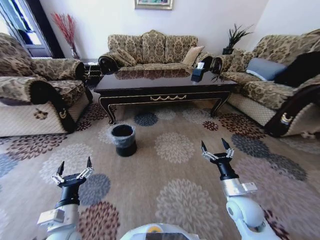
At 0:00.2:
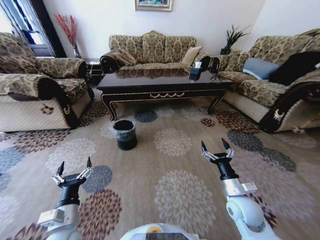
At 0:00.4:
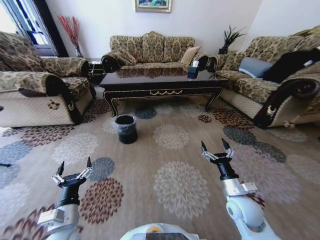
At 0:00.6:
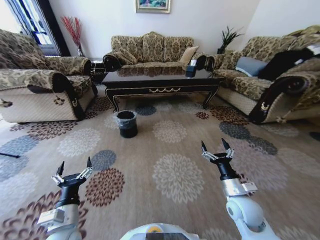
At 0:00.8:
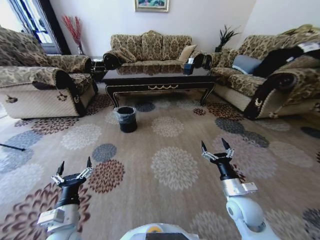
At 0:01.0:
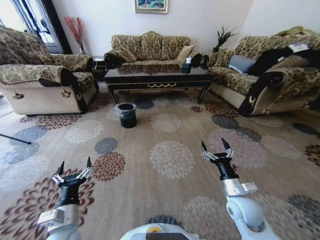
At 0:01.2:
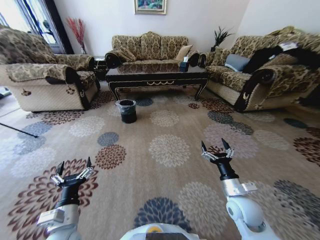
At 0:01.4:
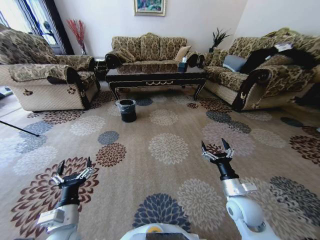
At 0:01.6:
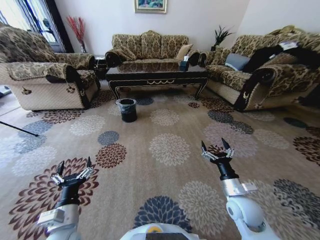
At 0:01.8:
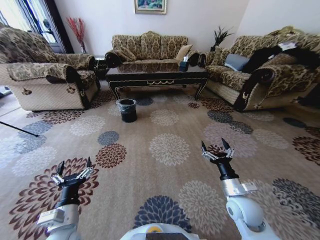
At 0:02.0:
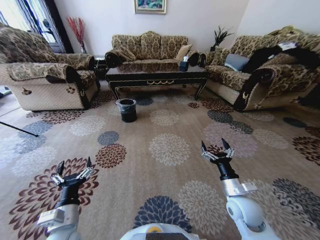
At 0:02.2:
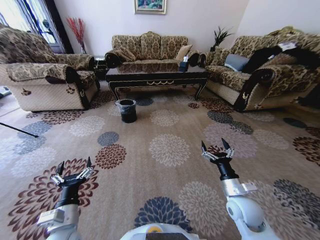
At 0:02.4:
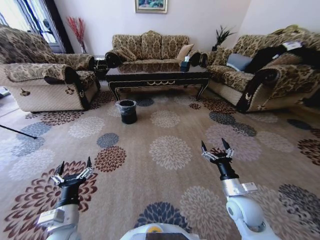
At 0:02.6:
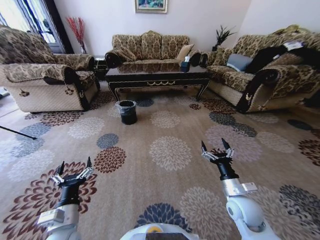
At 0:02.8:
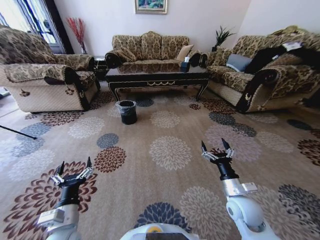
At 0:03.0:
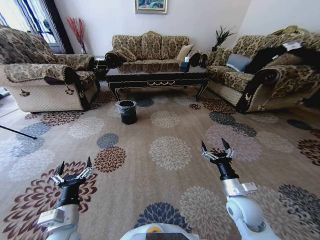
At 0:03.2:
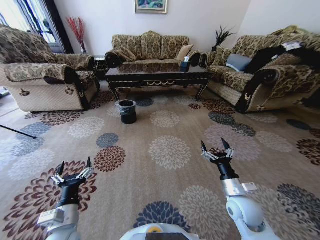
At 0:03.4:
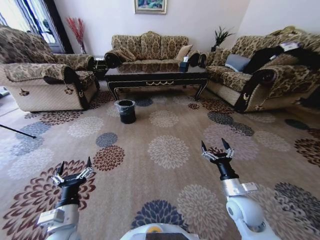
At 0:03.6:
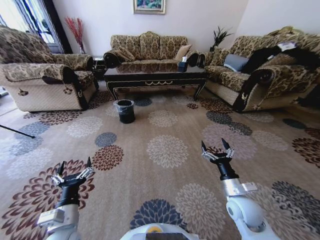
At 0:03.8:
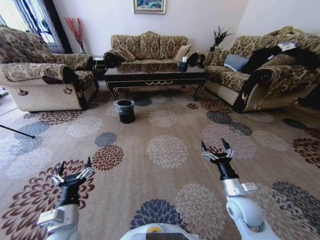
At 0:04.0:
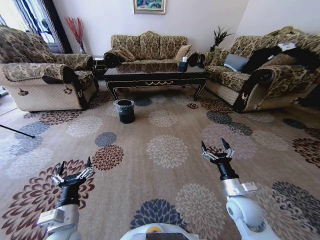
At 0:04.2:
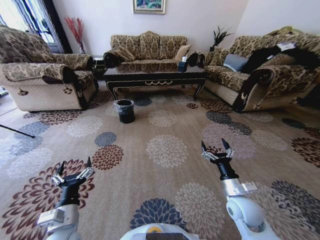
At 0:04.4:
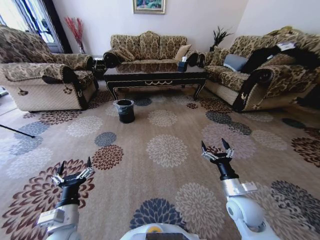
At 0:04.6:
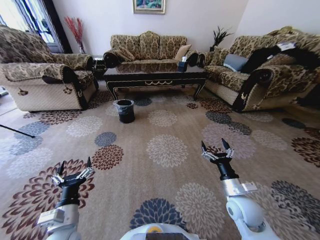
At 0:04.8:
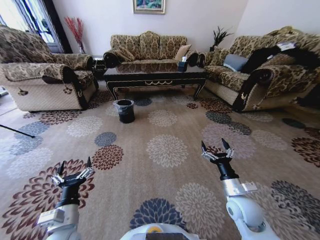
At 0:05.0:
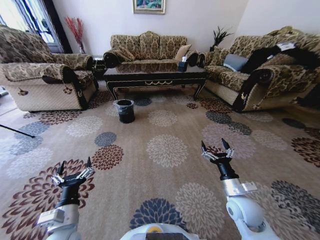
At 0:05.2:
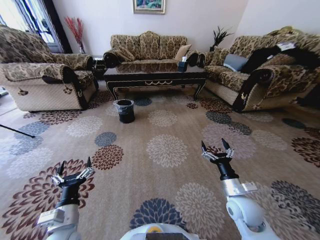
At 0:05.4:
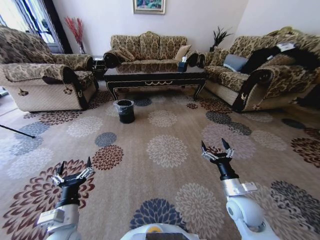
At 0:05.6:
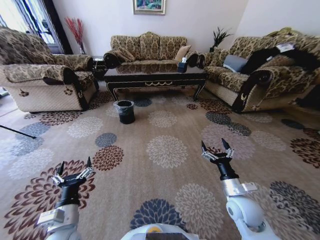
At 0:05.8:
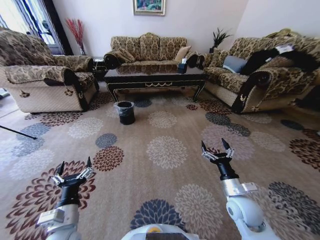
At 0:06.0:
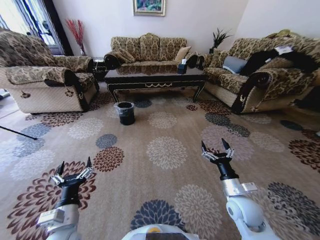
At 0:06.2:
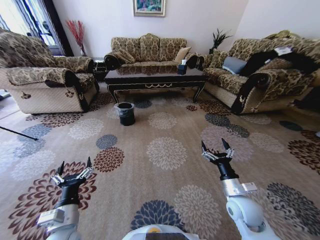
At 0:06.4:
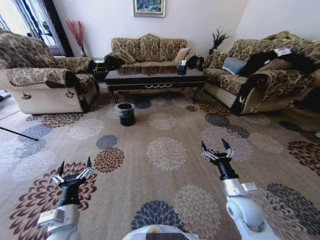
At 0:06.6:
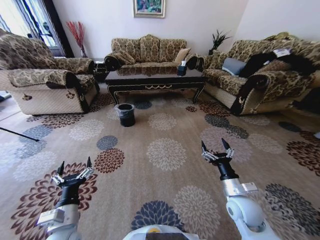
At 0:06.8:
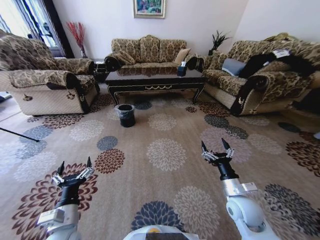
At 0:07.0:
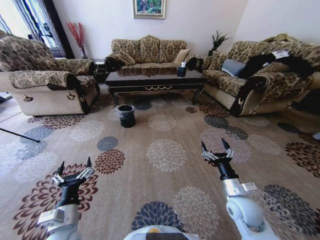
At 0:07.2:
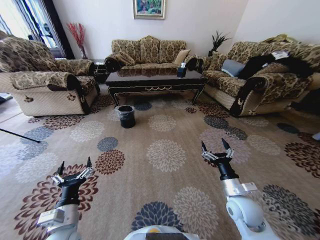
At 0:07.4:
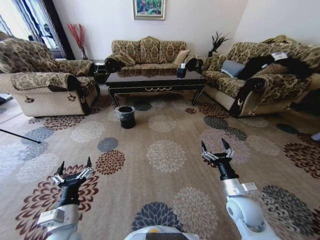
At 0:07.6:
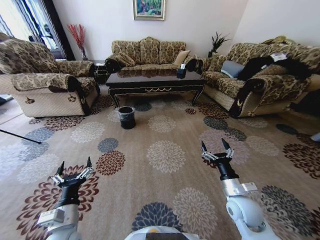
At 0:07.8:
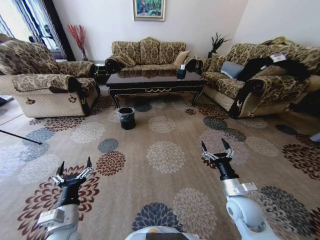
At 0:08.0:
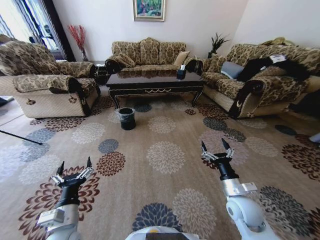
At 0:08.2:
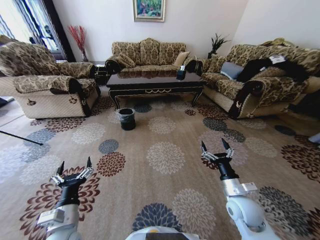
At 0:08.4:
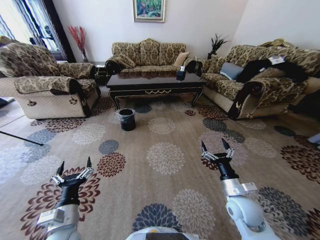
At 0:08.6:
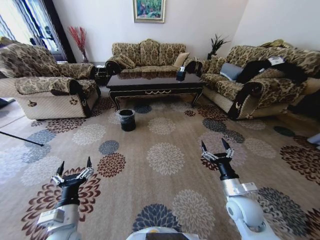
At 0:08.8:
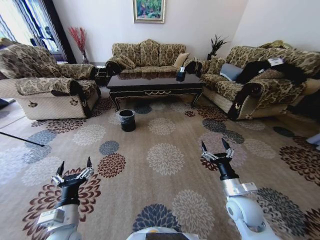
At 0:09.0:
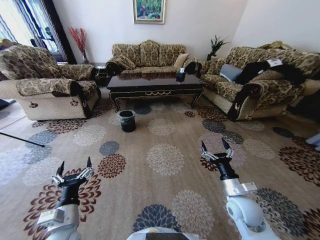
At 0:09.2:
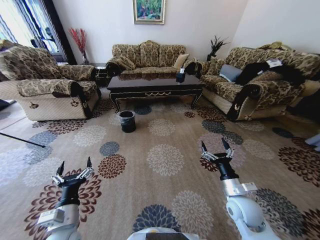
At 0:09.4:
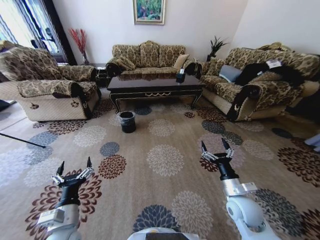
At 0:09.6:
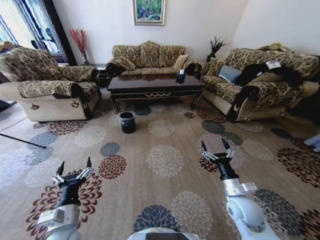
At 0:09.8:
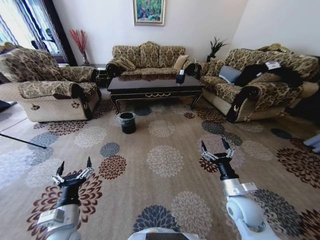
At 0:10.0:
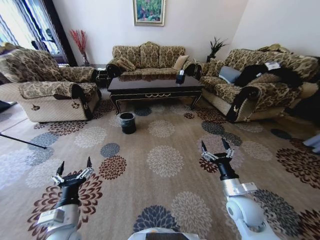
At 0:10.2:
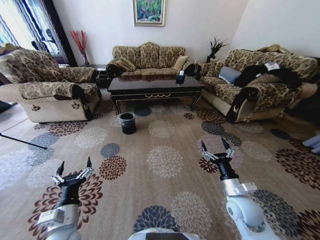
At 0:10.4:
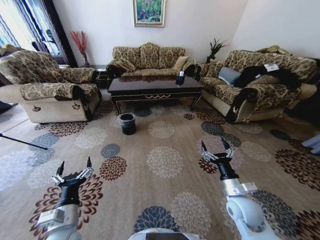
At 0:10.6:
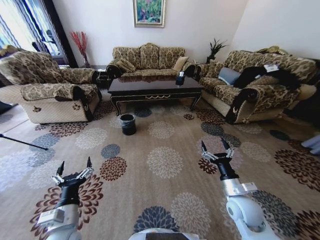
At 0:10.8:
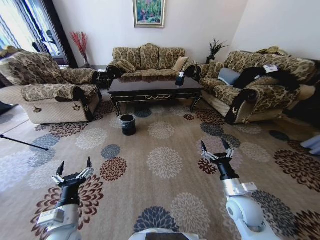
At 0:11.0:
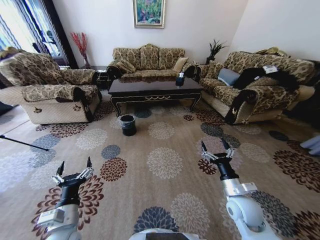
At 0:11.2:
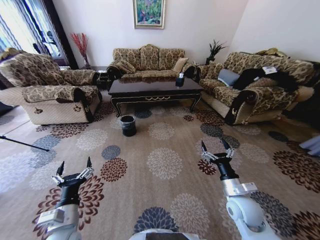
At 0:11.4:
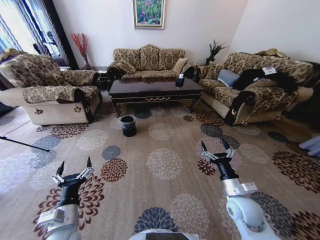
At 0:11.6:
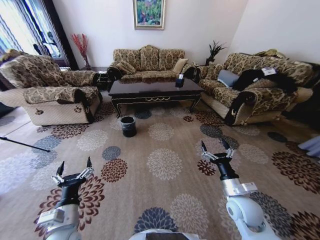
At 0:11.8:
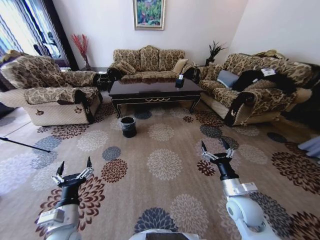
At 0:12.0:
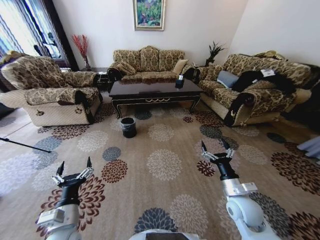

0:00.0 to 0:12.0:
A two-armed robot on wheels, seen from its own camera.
Task of the whole recording: Move to the front of the table and pick up the trash from the floor, then place it into the trash bin.
0:01.6 to 0:06.0: The two grippers keep their place.

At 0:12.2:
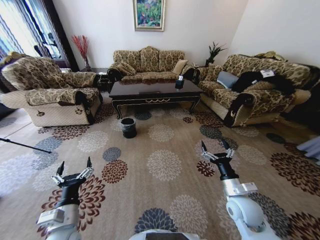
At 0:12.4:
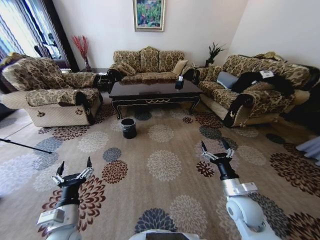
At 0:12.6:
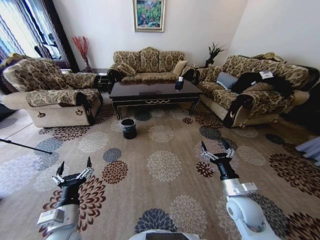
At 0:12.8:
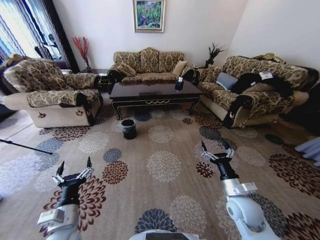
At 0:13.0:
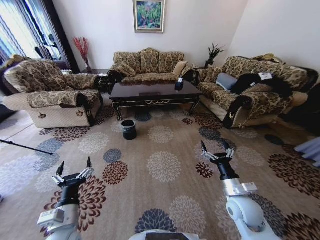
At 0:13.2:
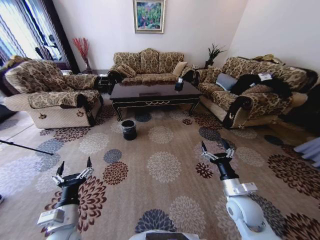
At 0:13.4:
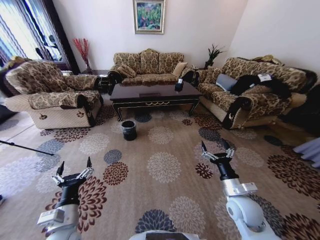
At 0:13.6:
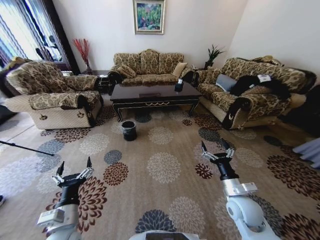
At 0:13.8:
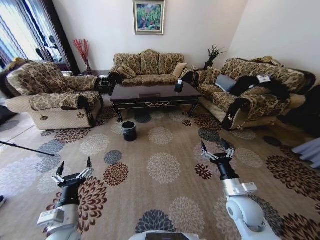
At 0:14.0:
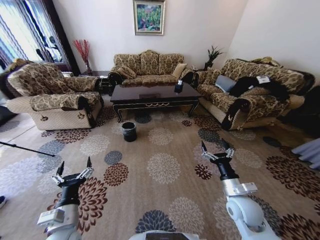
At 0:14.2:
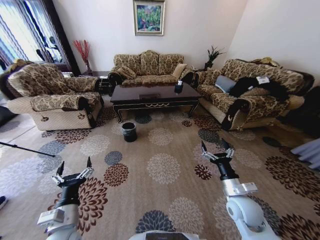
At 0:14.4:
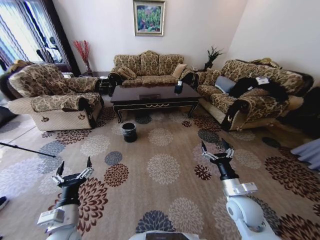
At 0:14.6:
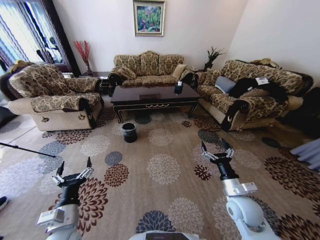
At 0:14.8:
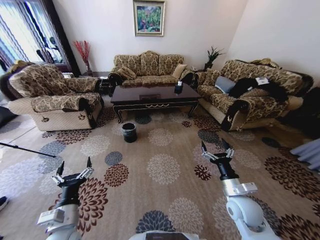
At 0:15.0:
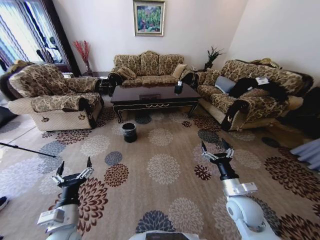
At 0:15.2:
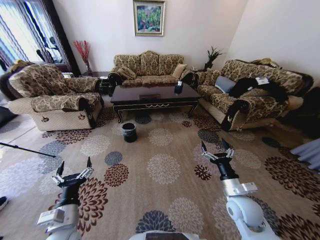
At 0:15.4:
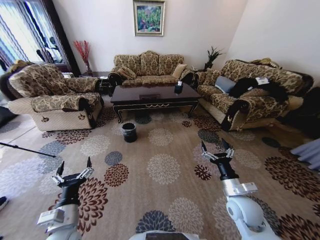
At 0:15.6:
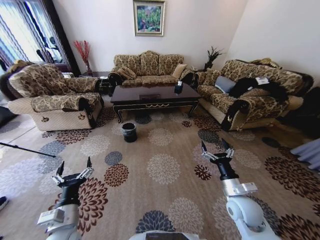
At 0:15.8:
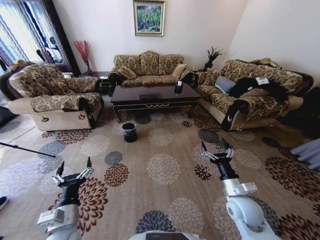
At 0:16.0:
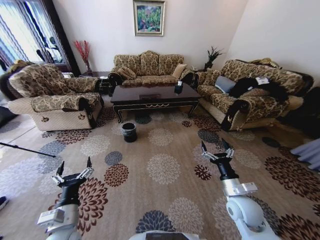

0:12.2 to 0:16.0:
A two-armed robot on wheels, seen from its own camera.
Task of the whole recording: Move to the front of the table and pick up the trash from the floor, then place it into the trash bin.
0:12.2 to 0:16.0: The two grippers keep their place.

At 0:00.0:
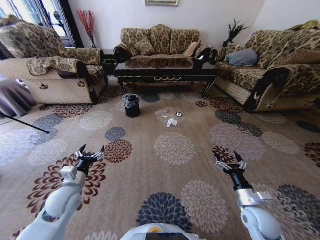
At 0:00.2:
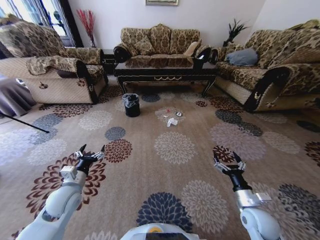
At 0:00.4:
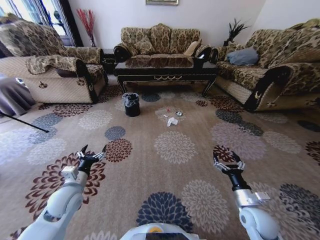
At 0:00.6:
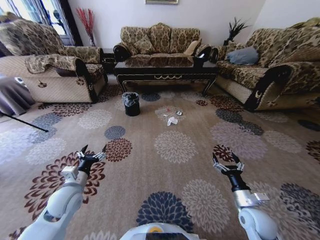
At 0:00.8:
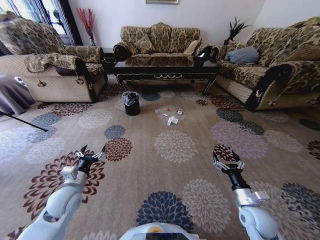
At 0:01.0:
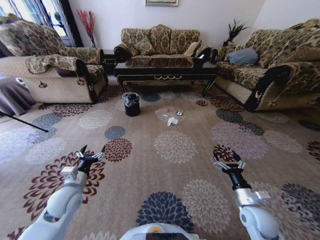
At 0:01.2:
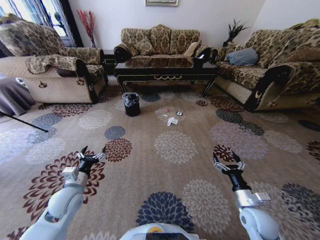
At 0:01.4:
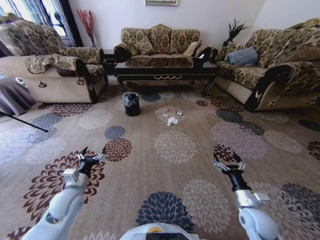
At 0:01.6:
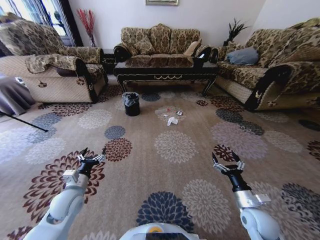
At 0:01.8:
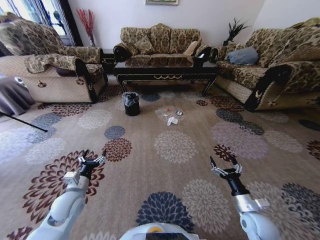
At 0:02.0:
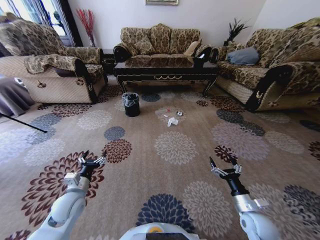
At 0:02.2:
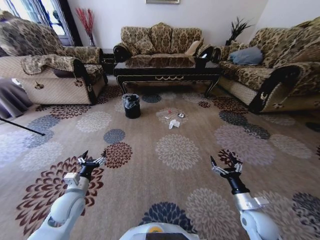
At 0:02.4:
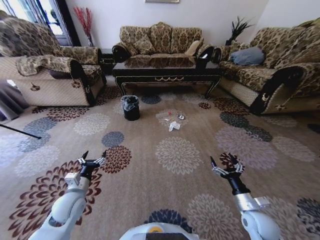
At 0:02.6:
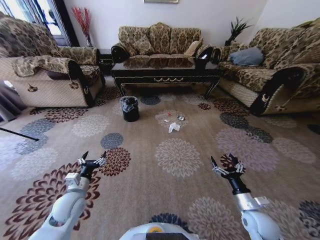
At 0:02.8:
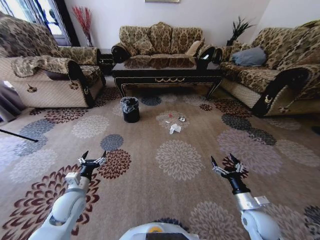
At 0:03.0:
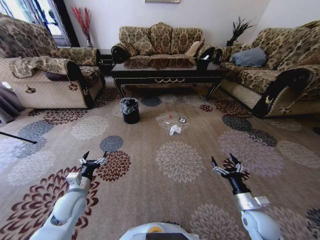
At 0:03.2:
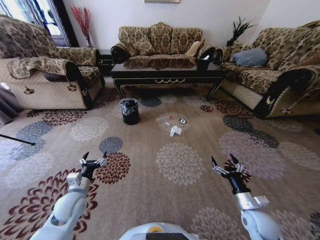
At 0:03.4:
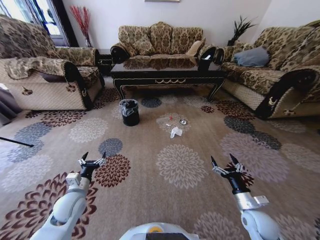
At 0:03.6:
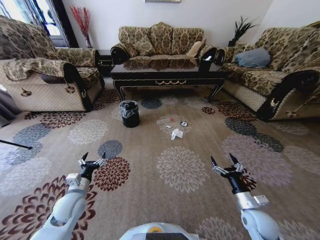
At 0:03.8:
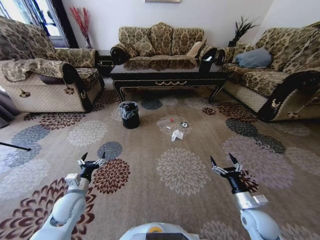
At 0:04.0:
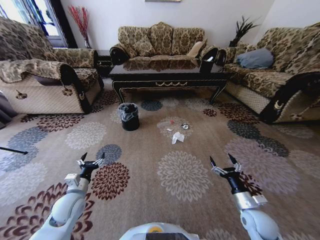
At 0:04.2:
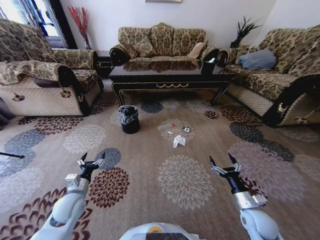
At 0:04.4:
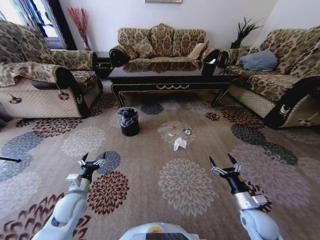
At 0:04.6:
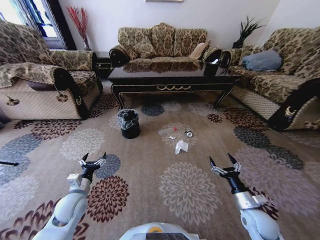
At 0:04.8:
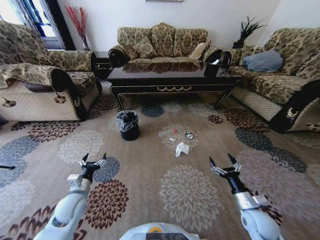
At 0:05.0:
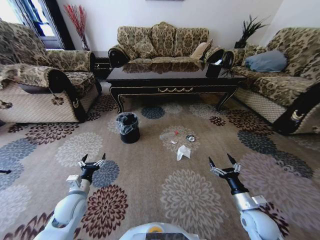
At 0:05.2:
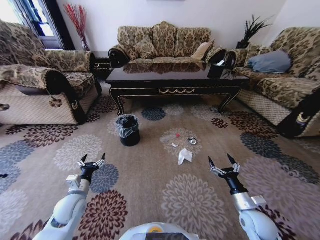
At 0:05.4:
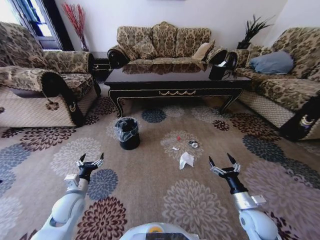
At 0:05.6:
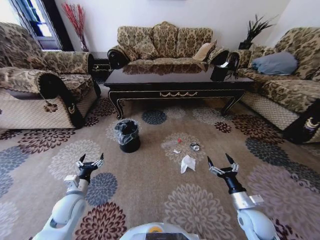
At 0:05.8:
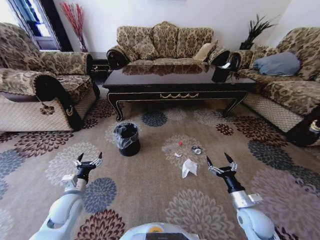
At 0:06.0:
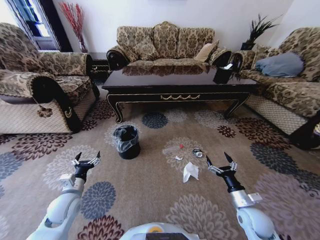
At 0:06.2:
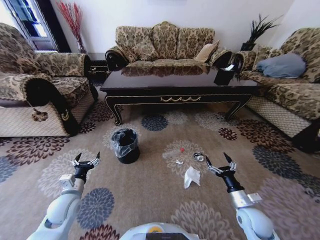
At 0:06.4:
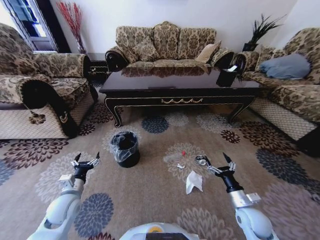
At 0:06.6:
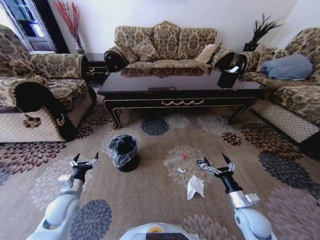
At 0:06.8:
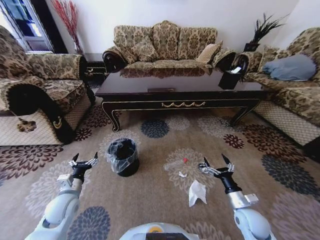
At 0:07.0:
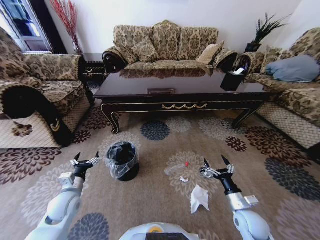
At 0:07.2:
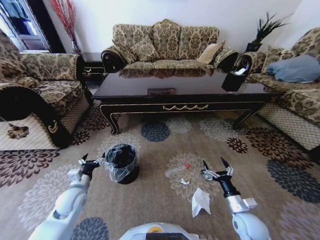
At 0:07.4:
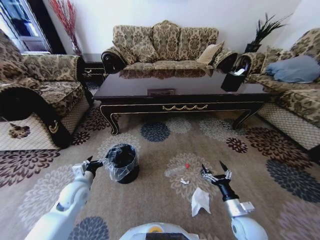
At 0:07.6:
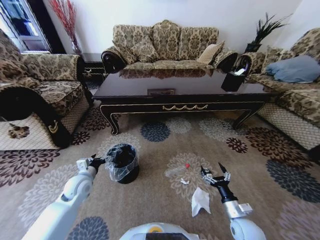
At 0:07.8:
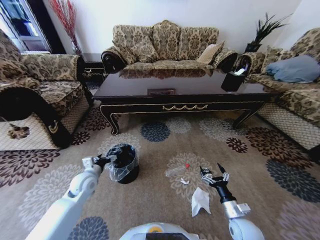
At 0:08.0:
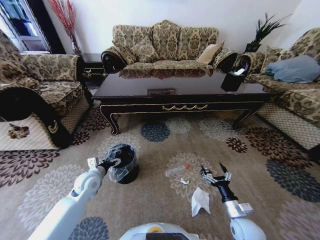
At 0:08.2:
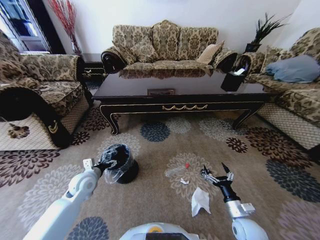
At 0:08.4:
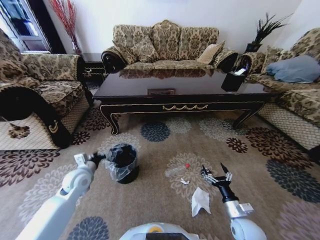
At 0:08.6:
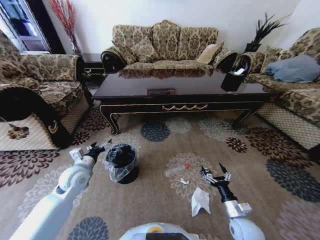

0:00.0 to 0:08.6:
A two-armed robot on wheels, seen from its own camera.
Task of the whole recording: Move to the front of the table and pick up the trash from the floor, then place it into the trash bin.
0:00.0 to 0:01.4: Neither gripper changes place.
0:07.2 to 0:08.6: The left gripper moves upward and forward, about 10 cm.
